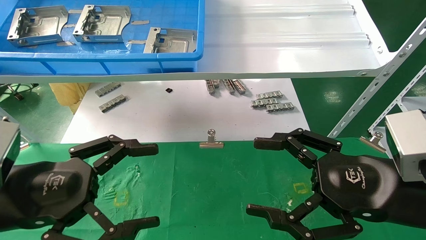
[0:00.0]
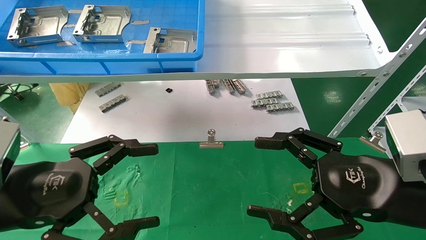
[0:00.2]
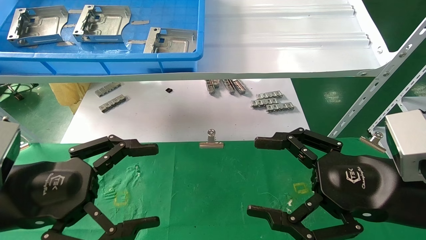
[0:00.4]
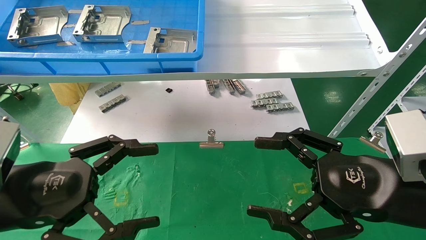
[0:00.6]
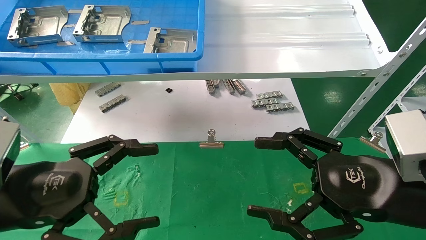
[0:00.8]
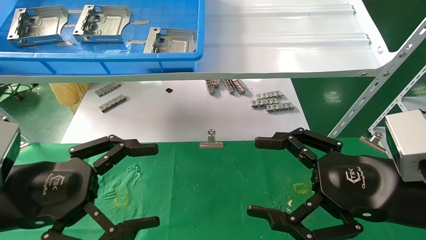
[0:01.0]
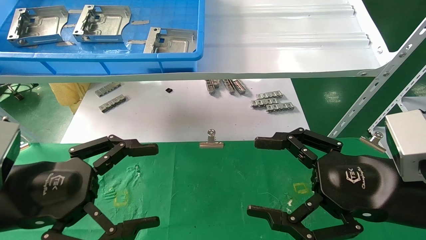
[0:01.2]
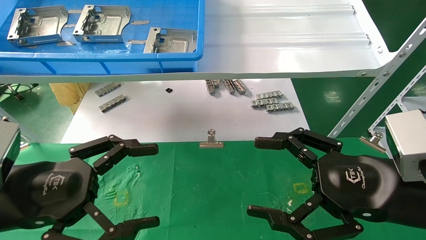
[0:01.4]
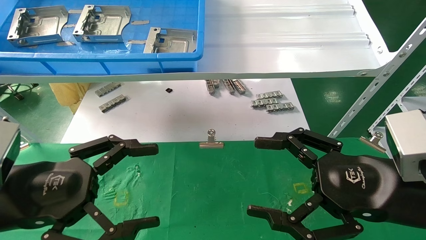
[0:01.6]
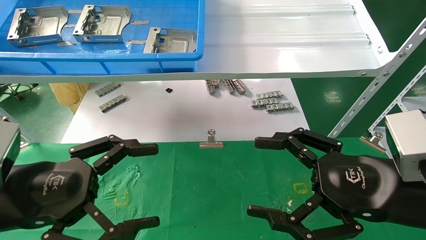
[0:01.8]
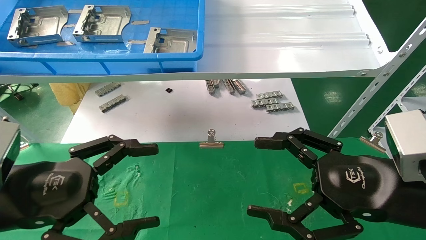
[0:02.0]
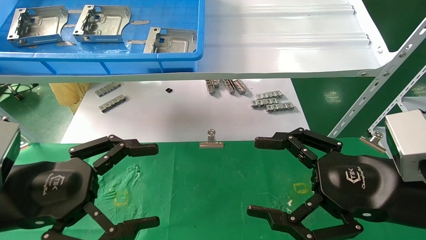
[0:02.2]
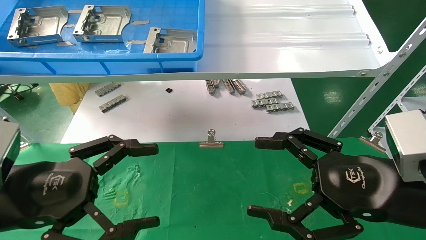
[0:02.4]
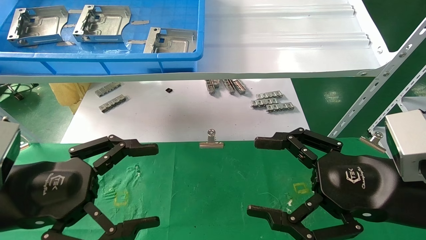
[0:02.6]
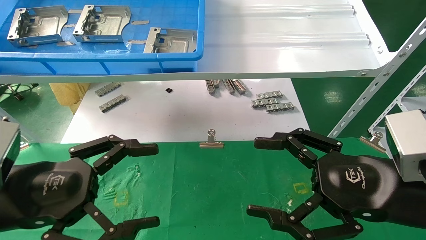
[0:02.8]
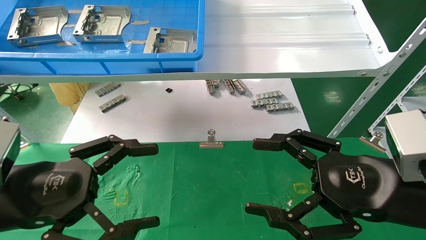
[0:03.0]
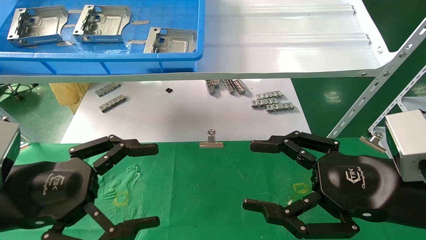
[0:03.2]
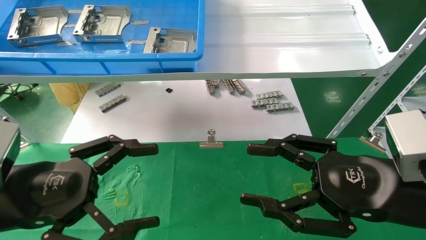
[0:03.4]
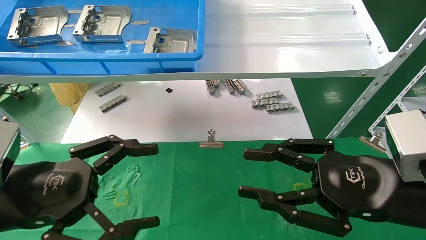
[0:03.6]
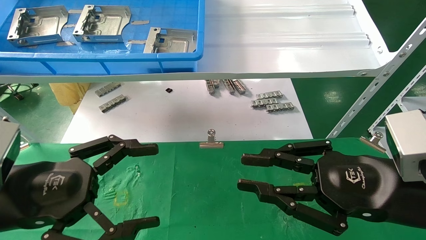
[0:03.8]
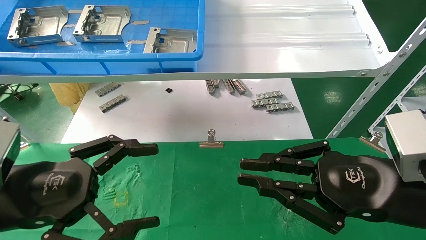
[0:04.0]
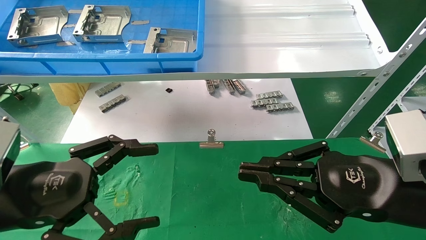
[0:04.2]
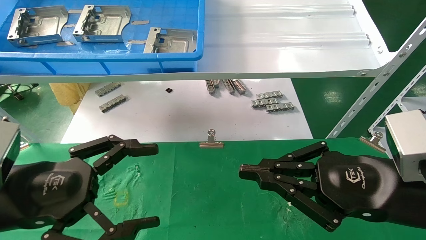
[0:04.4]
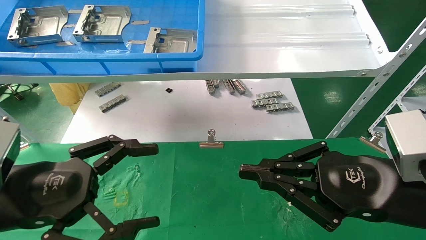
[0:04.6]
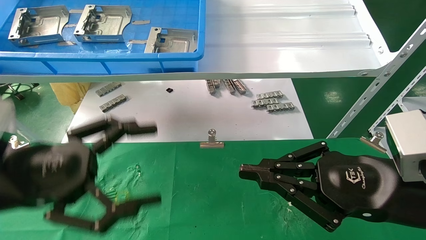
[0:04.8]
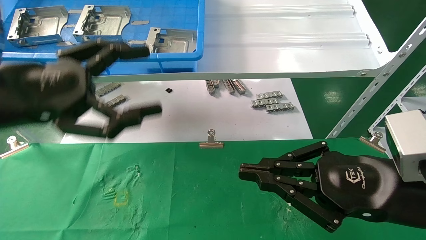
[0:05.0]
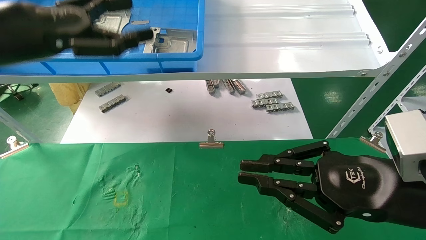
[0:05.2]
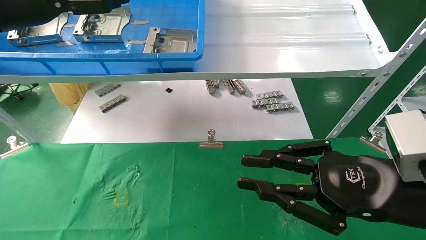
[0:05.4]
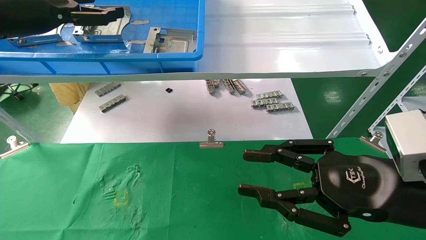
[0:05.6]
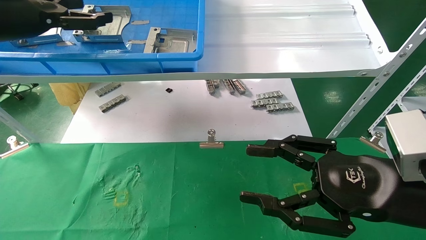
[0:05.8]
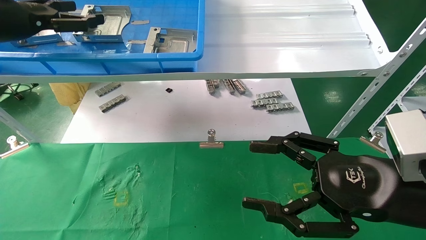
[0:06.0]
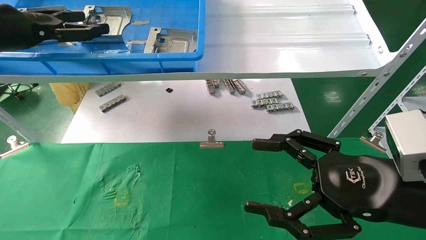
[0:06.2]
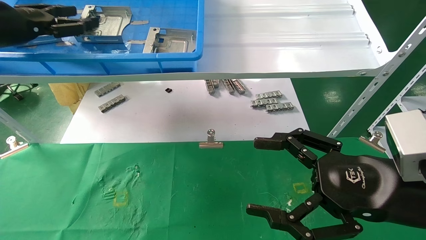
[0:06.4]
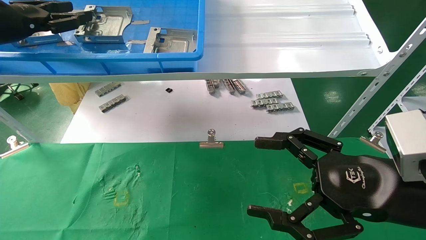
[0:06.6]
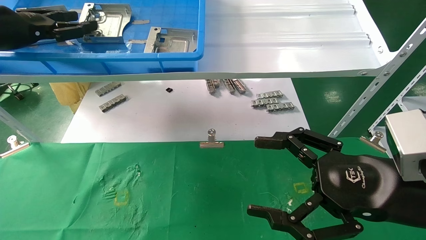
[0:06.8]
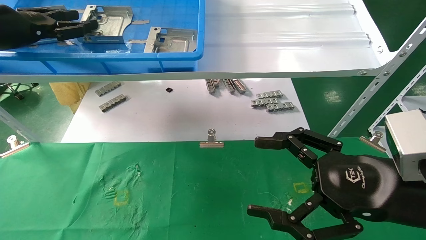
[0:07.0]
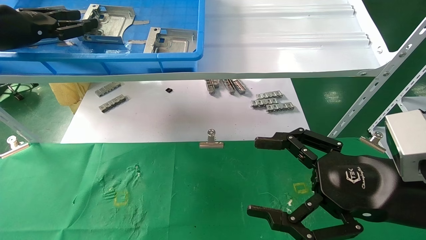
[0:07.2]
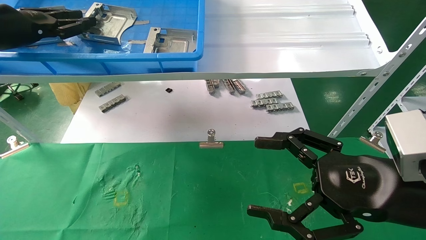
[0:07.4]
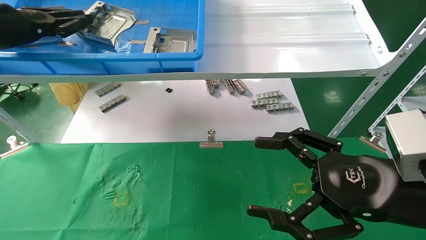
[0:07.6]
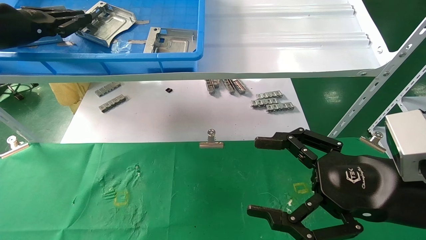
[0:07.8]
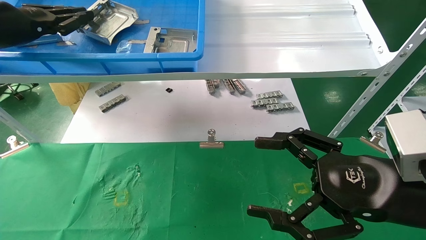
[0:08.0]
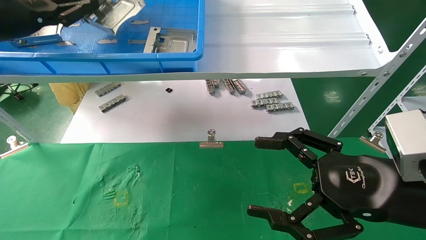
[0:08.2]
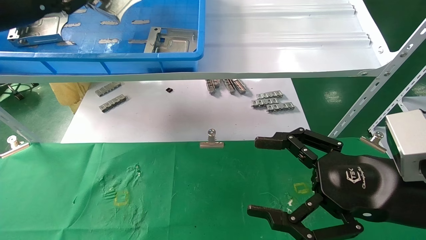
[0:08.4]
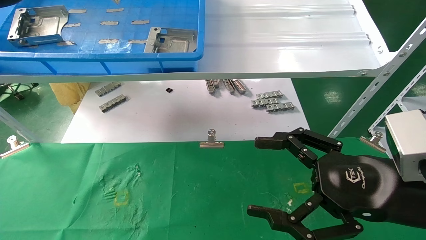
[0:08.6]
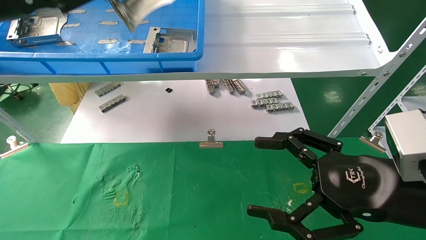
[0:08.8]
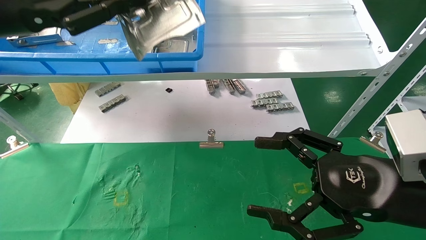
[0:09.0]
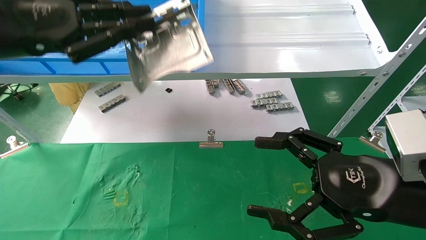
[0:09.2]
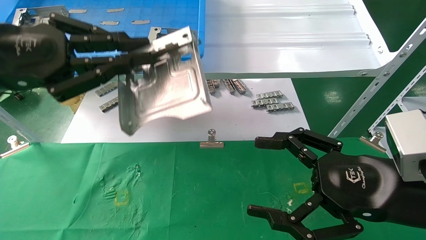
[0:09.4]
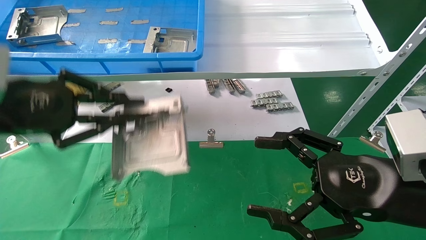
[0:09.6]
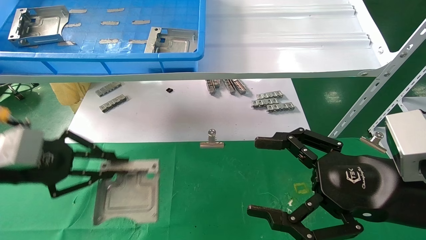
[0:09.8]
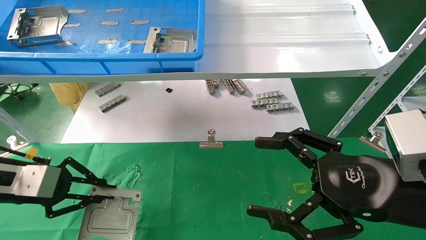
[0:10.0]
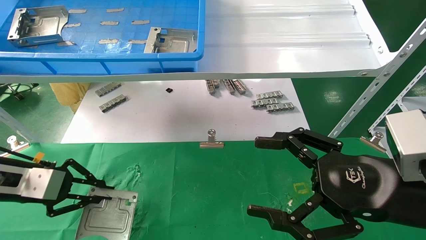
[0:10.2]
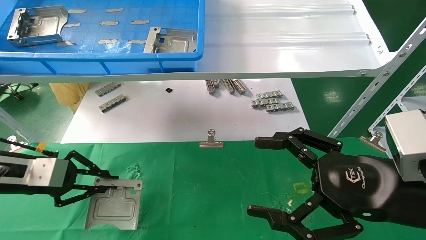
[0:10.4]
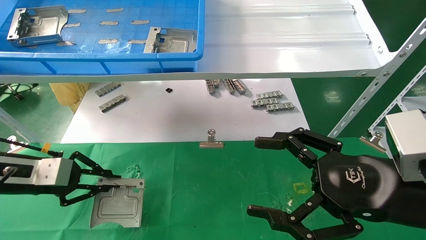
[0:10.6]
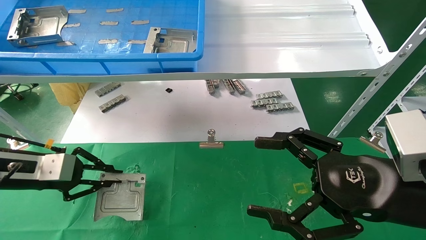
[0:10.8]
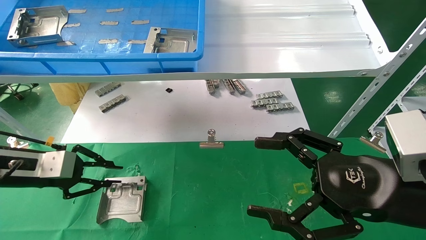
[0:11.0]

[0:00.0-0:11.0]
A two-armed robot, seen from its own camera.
Task of the whole recording: use the mechanical arm to pick up the parts and place them on the table.
Step, 0:05.0 to 0:07.8: Pick up the hard drive bracket from the feeding area.
0:00.0 to 0:03.2: The two grippers keep their place.
0:03.2 to 0:04.8: The left gripper shifts some 5 cm upward, while the right gripper closes up.
0:04.8 to 0:06.2: The right gripper opens its fingers. Meanwhile the left gripper moves forward, upward and to the left, roughly 25 cm.
0:06.2 to 0:07.8: The left gripper closes up.
0:07.8 to 0:09.4: The left gripper heads backward and to the right, covering roughly 15 cm.
0:09.4 to 0:11.0: The left gripper heads downward, forward and to the left, covering roughly 20 cm.

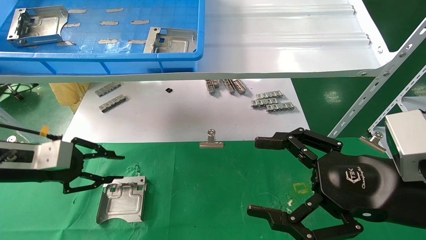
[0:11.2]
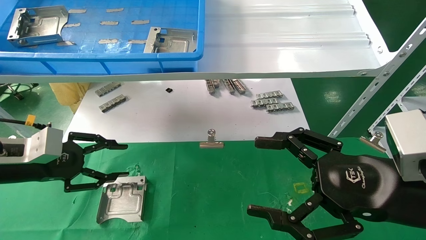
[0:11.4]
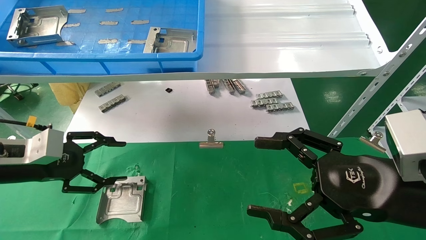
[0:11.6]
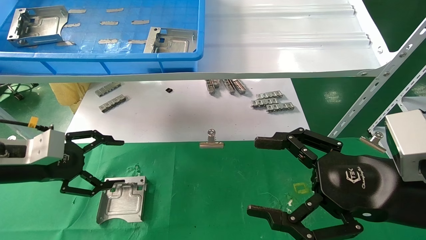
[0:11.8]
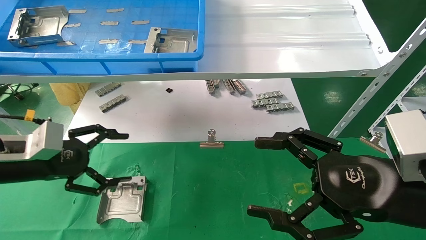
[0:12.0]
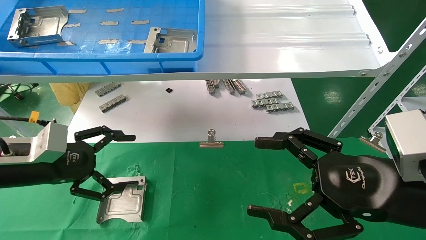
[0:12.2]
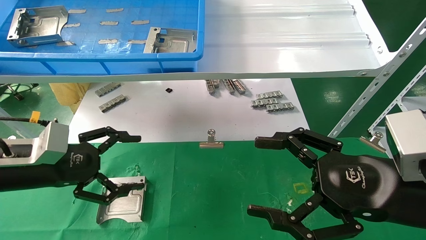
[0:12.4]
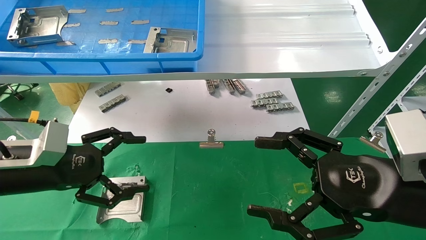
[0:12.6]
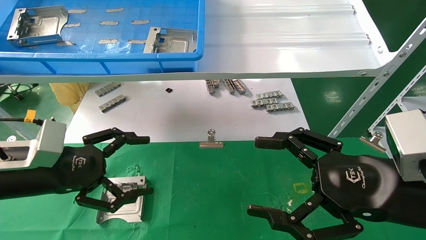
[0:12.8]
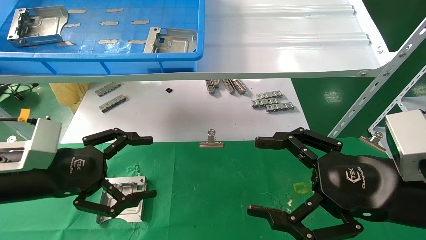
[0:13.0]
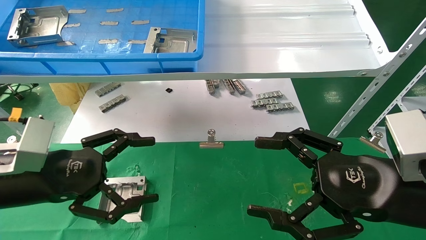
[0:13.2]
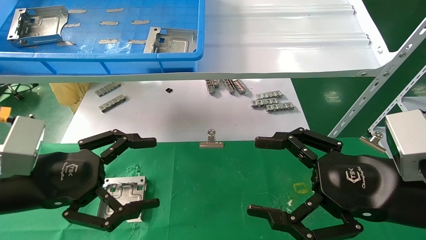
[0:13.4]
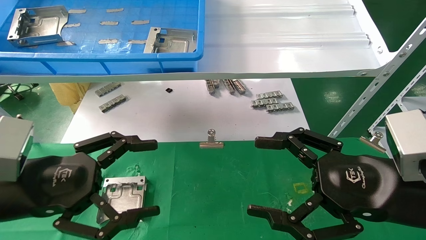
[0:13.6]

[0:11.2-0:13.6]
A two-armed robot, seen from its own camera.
Task of the whole recording: use the mechanical arm to pick up the parts and place them on the table.
0:11.2 to 0:12.4: The left gripper shifts by some 5 cm, and opens up.
0:12.4 to 0:13.6: The left gripper shifts about 10 cm backward.

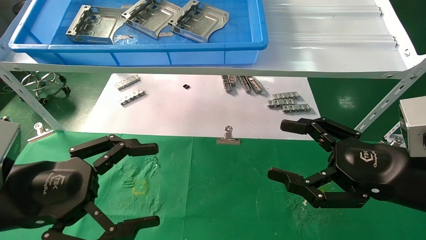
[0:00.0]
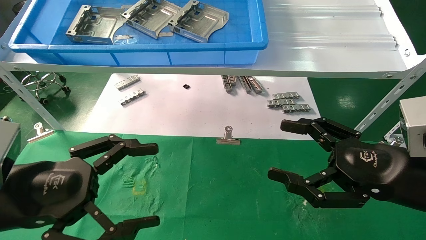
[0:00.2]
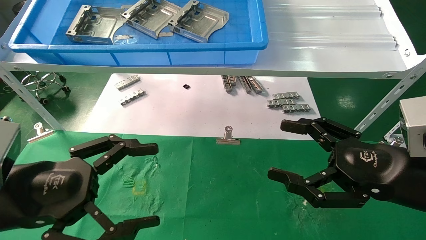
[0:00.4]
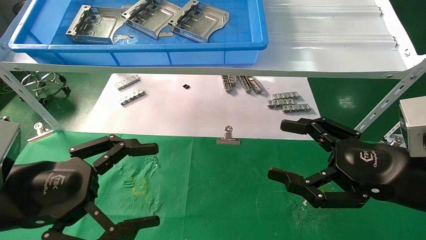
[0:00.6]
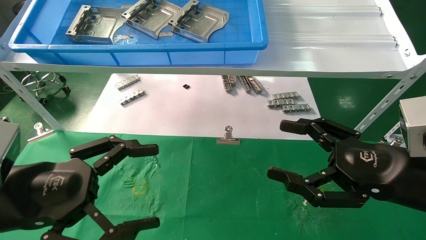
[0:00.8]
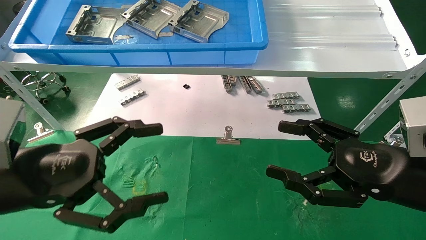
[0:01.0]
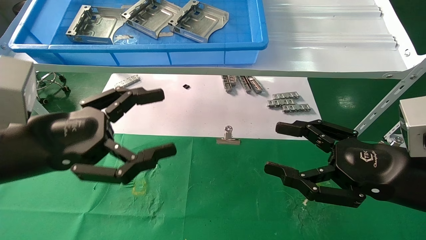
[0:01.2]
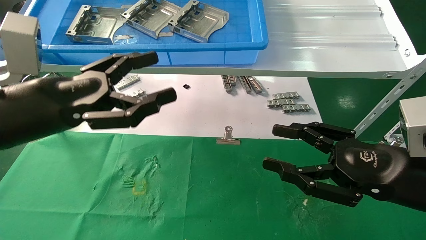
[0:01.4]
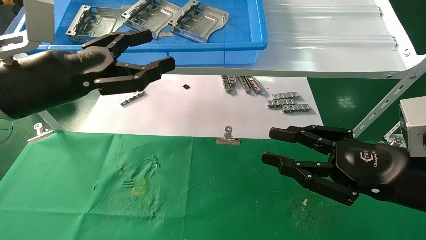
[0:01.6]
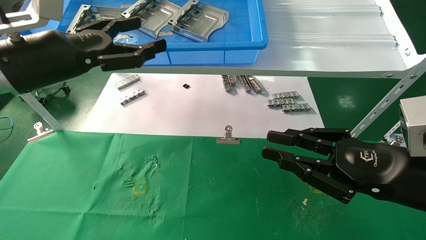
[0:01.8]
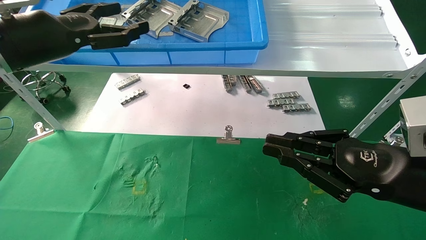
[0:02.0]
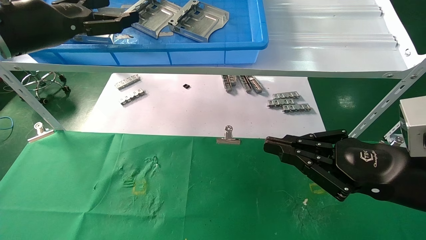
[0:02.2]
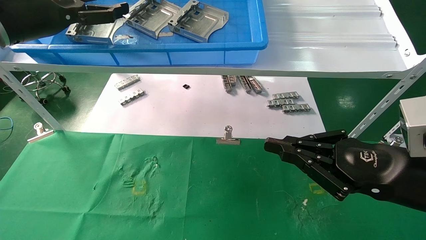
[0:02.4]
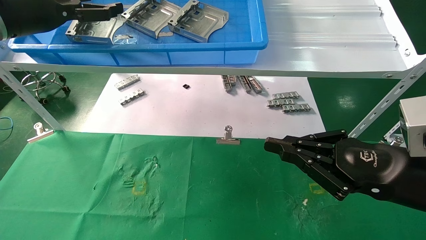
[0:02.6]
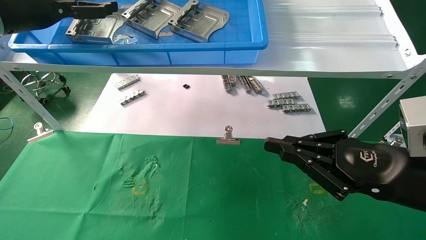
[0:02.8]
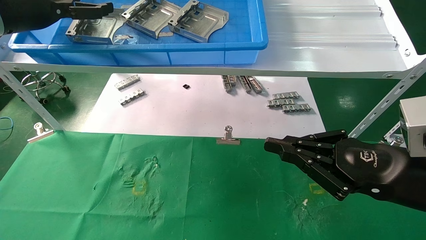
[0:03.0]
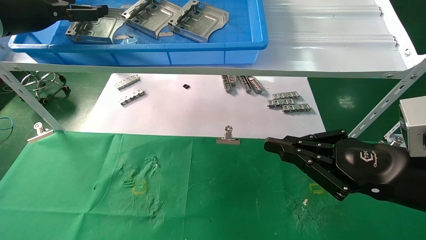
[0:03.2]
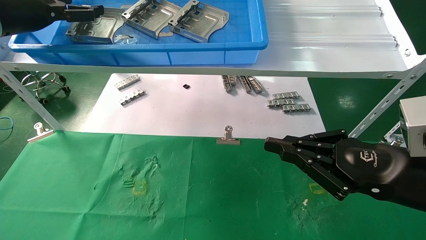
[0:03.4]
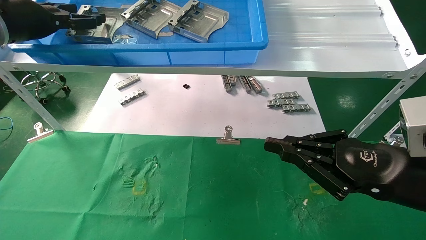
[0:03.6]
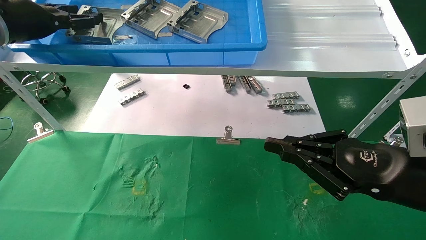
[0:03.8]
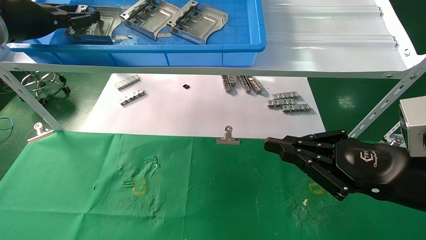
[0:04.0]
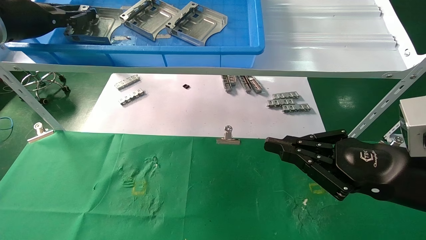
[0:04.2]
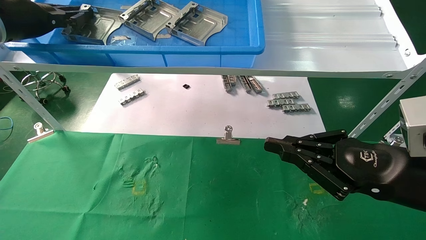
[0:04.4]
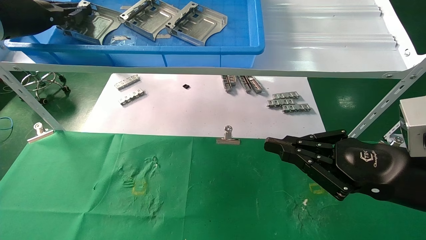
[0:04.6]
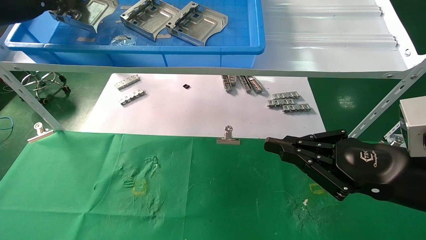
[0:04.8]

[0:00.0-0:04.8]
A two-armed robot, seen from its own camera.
Task of the whole recording: use the mechanical arm to pick up the parts and place them on the table.
Step, 0:01.2 to 0:04.4: Pick up the hard drive bracket from the feeding area.
0:00.0 to 0:01.6: The left gripper travels upward and forward by some 15 cm. Meanwhile the right gripper closes.
0:01.6 to 0:03.2: The right gripper closes its fingers; the left gripper heads forward, upward and to the left, covering approximately 20 cm.
0:03.2 to 0:04.8: The left gripper closes its fingers.
